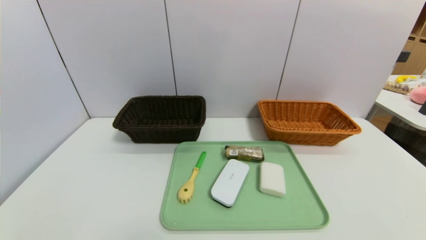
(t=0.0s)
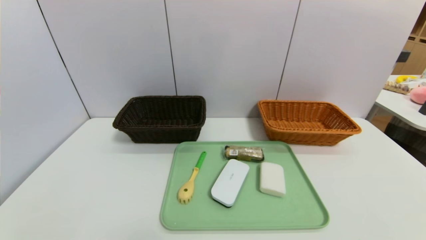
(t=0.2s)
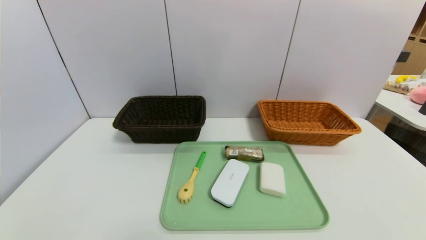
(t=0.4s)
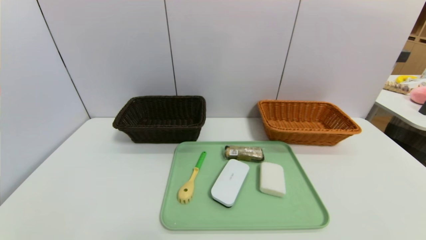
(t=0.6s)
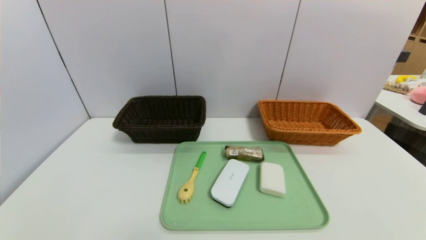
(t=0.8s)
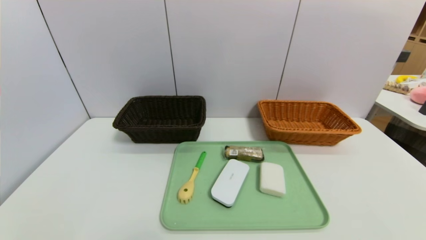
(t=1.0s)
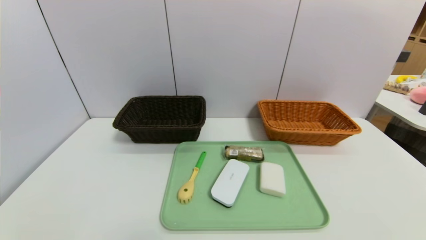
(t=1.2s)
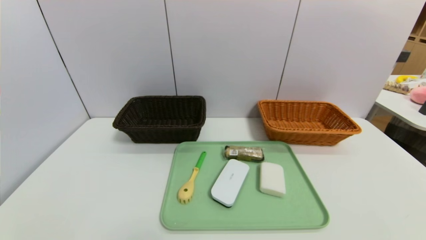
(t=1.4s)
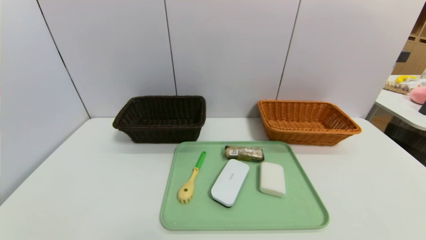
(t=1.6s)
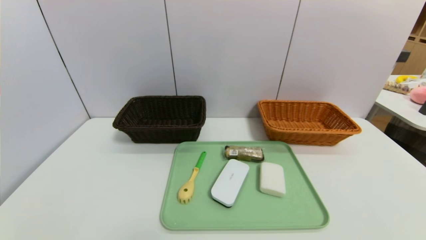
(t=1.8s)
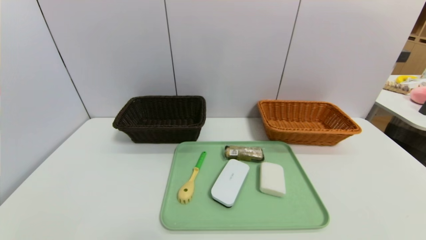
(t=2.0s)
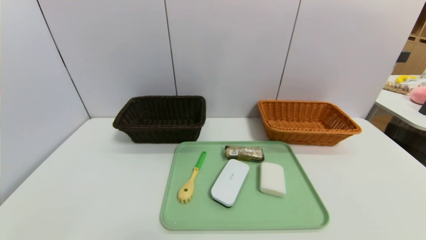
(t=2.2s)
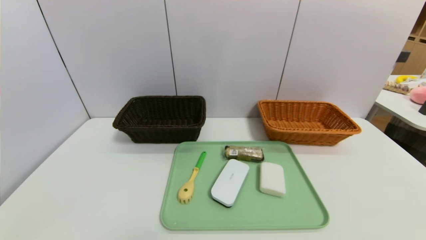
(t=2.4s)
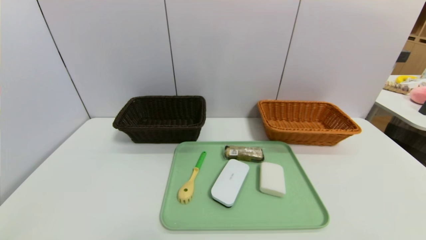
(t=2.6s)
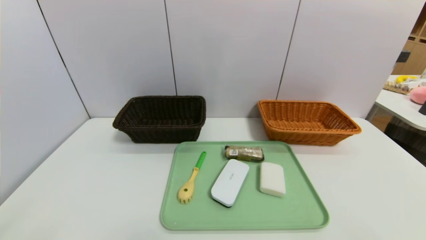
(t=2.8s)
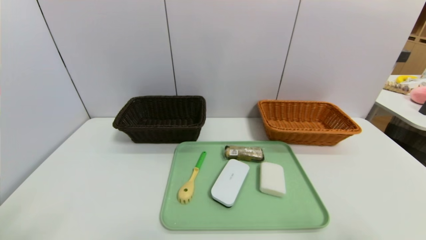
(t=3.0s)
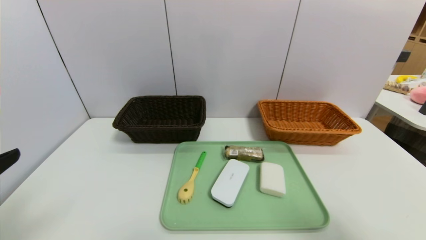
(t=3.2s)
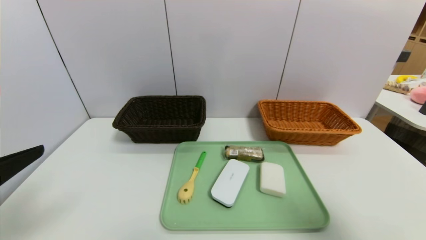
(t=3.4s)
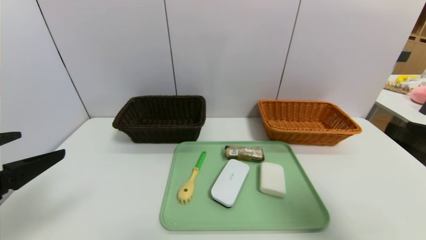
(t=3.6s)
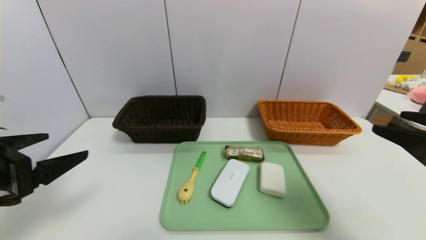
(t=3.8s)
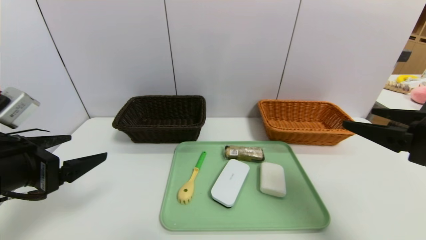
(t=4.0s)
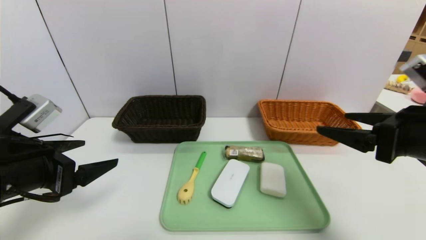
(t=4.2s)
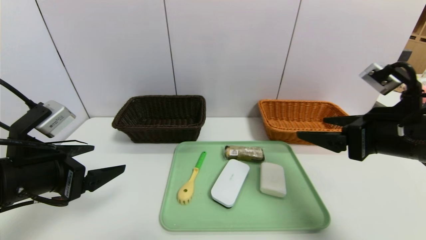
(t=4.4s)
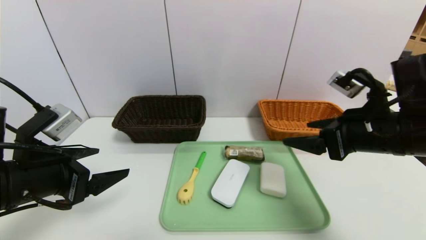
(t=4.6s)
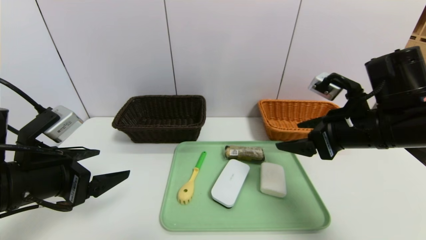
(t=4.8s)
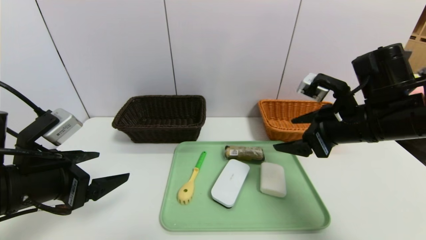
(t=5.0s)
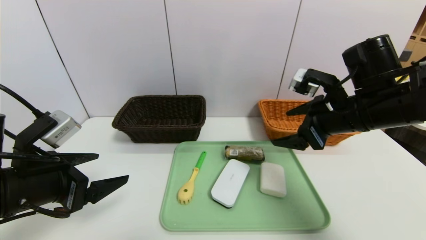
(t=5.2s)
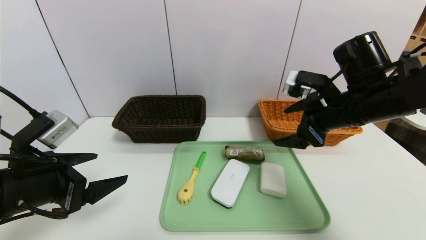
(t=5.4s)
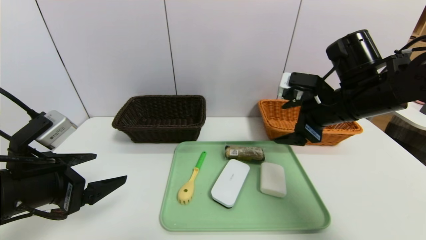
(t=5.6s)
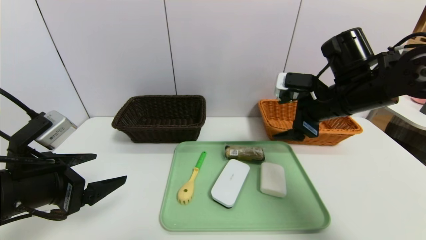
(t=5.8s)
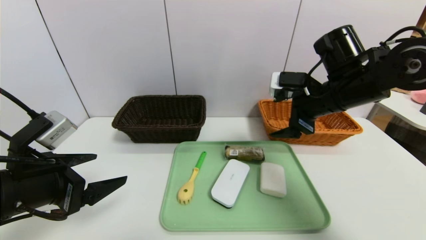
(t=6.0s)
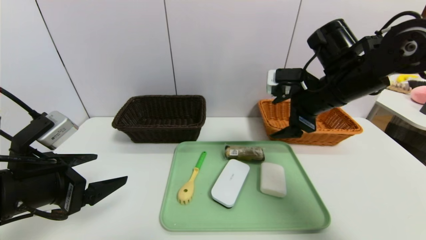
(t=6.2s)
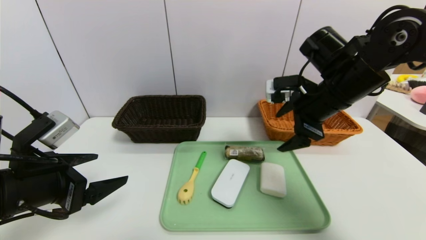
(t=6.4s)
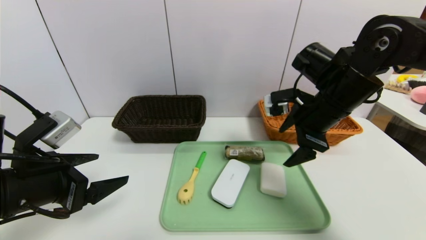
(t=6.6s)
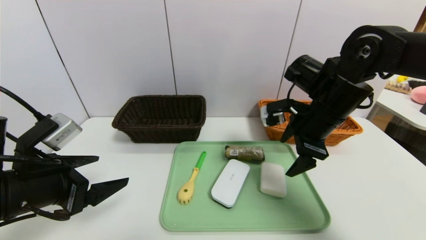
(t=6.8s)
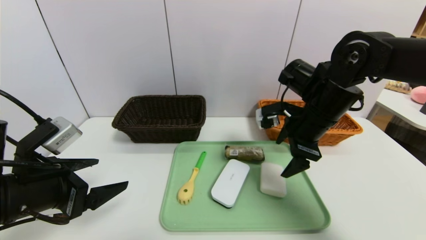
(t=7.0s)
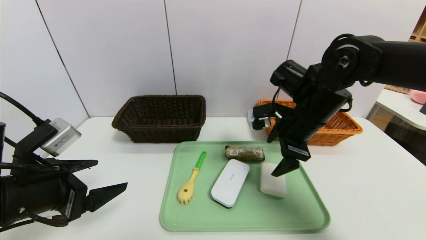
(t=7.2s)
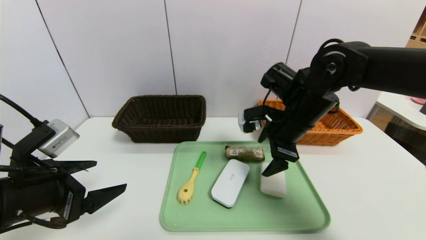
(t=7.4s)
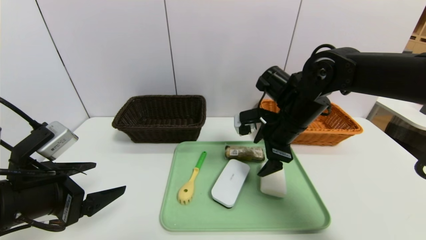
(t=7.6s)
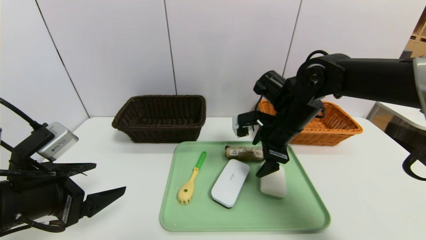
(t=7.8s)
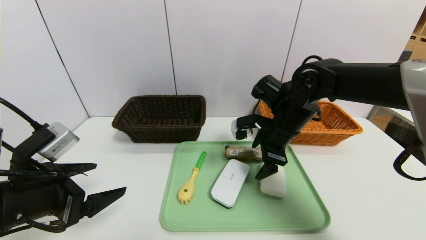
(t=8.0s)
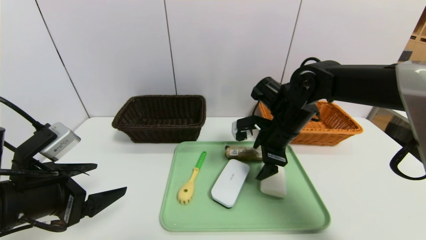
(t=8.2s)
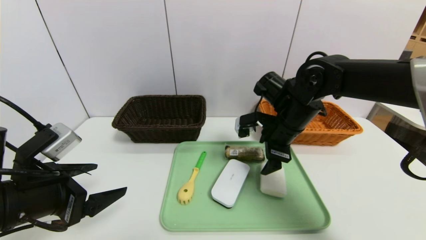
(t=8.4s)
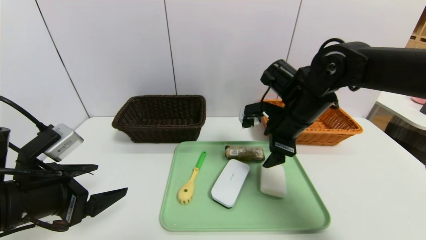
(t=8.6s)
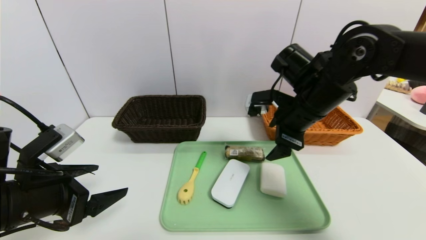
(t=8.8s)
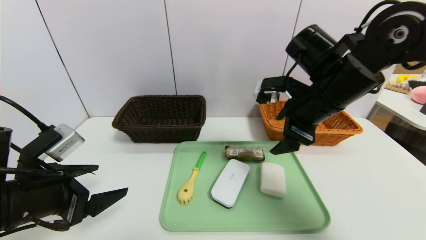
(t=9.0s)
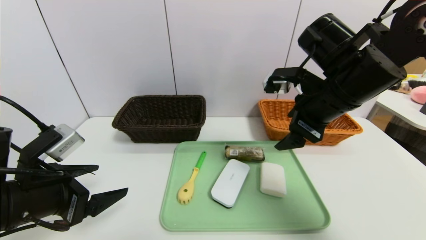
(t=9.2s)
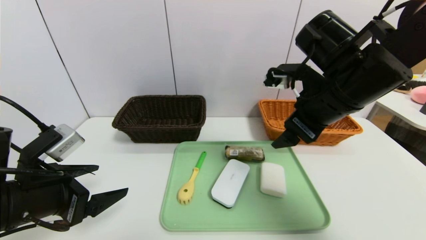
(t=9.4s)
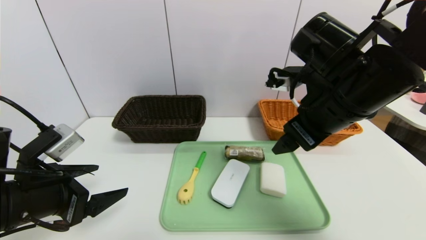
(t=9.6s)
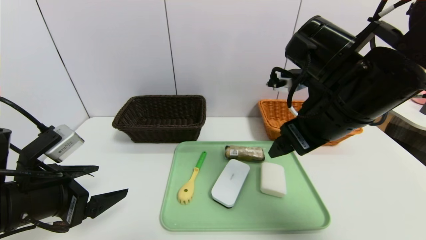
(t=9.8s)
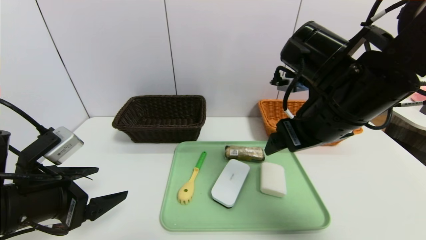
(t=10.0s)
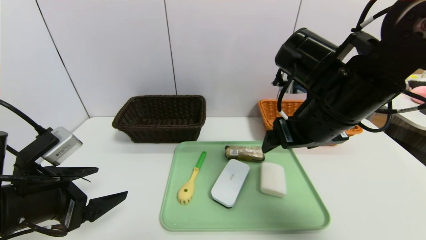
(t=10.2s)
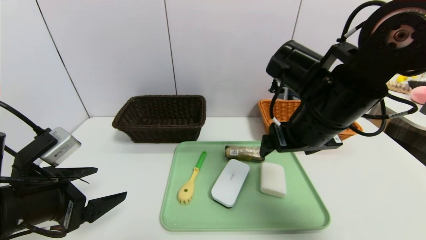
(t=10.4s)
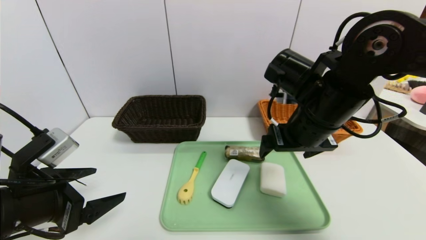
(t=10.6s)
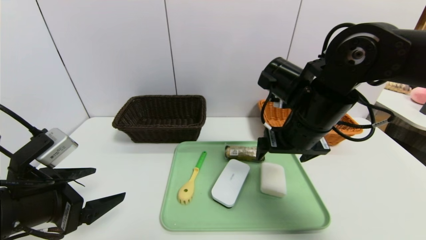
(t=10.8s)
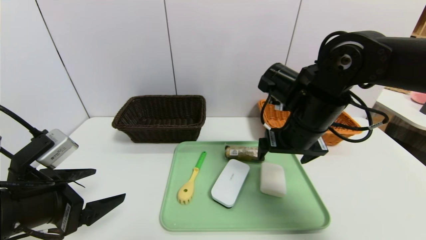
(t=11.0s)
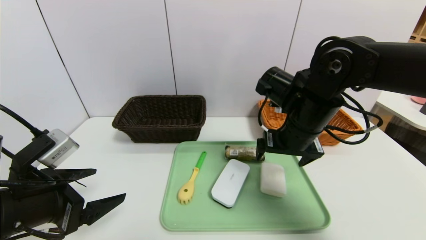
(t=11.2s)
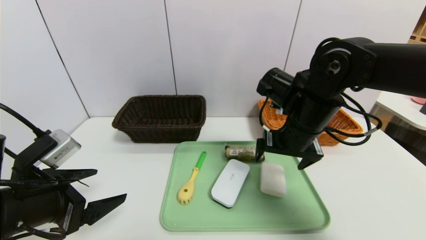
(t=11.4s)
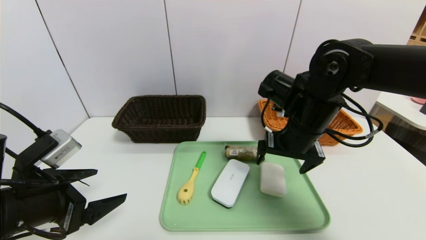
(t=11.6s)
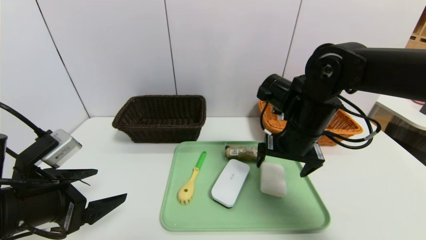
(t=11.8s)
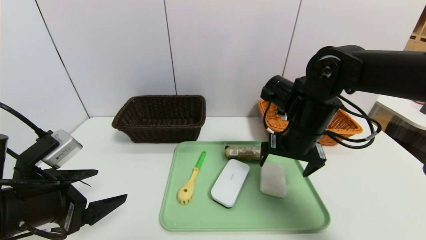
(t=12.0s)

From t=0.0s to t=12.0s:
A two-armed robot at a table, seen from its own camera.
Task of the whole recording: place the food in the right basket with the right gripper, and place the non food items in the left basket with the left gripper.
From t=0.0s to t=1.6s: Neither gripper changes place.
From t=3.0s to t=4.4s: The left gripper is displaced forward by roughly 15 cm, while the right gripper is displaced forward and to the left by some 20 cm.
From t=4.4s to t=6.0s: The right gripper is displaced forward and to the left by about 10 cm.
From t=6.0s to t=7.6s: The right gripper shifts about 5 cm to the left.
From t=7.6s to t=9.0s: The right gripper goes roughly 5 cm upward.
From t=10.4s to t=12.0s: The right gripper is displaced downward and forward by roughly 10 cm.

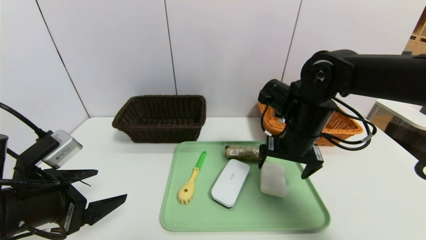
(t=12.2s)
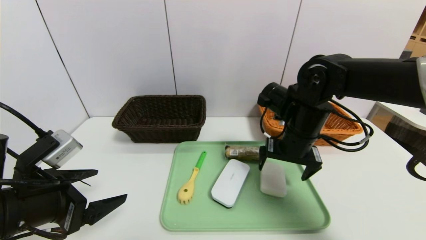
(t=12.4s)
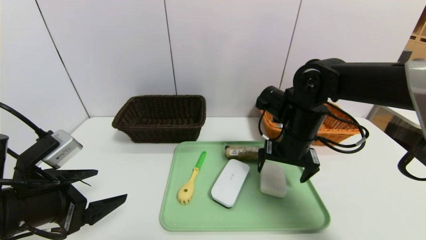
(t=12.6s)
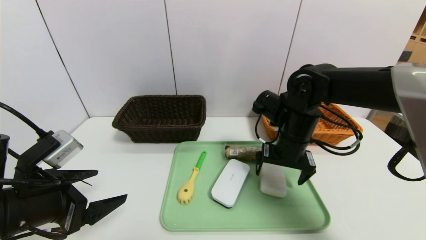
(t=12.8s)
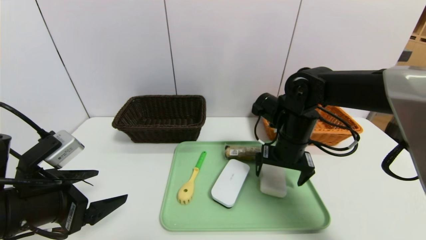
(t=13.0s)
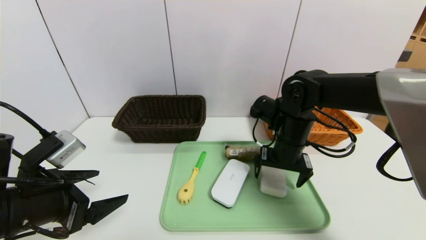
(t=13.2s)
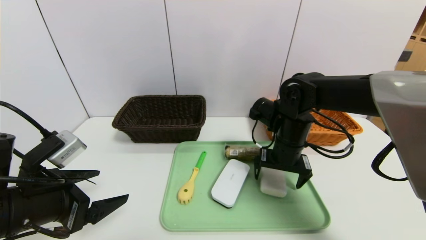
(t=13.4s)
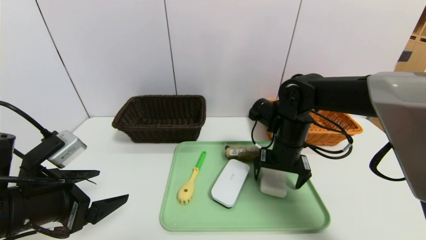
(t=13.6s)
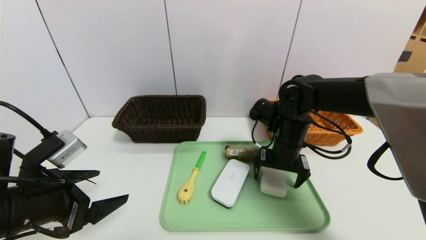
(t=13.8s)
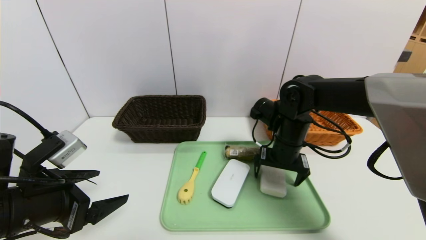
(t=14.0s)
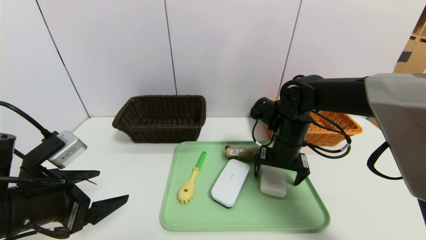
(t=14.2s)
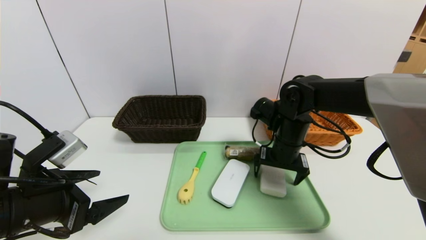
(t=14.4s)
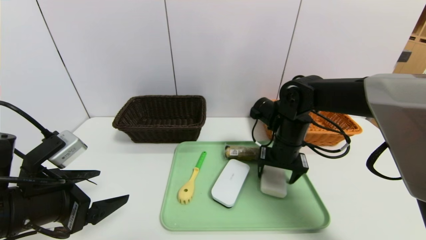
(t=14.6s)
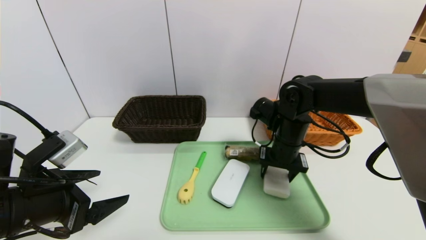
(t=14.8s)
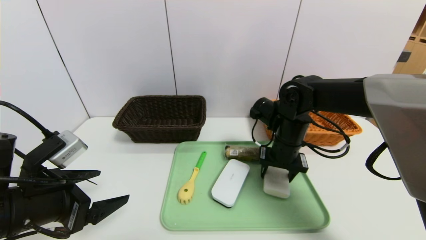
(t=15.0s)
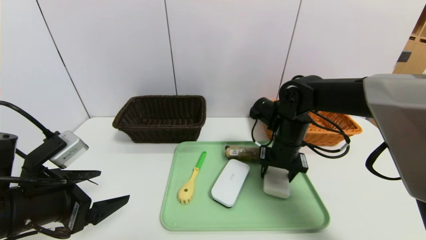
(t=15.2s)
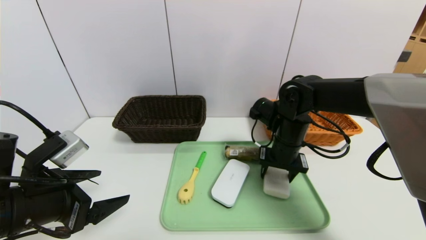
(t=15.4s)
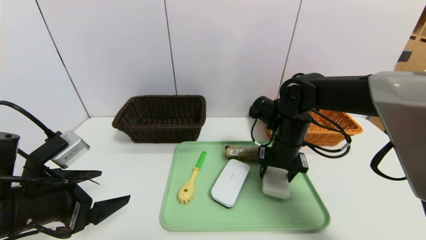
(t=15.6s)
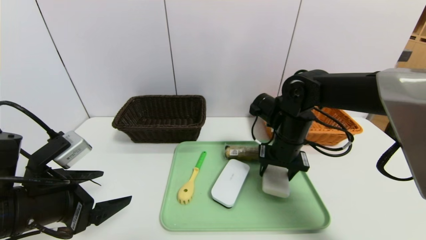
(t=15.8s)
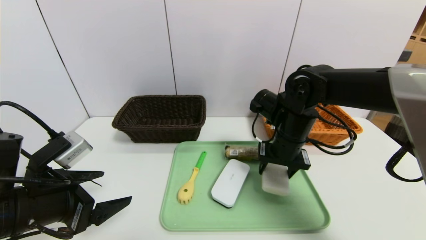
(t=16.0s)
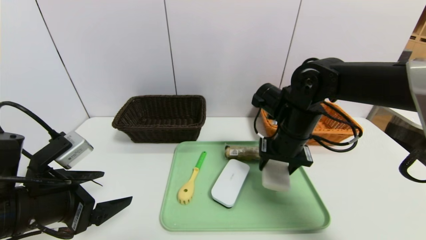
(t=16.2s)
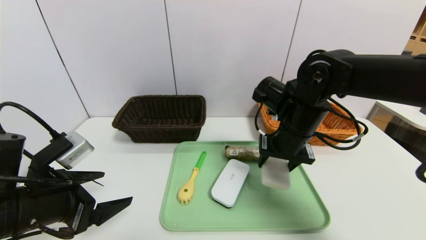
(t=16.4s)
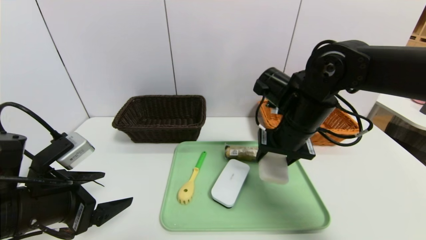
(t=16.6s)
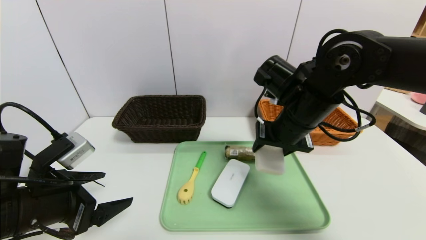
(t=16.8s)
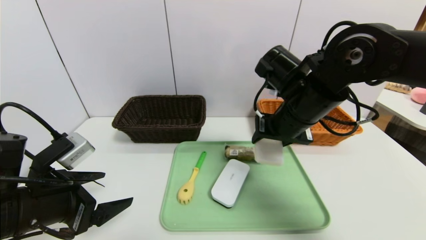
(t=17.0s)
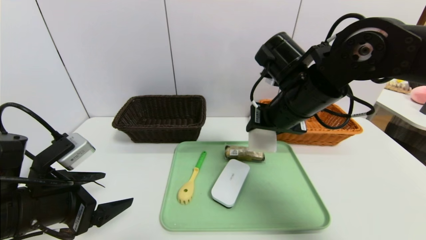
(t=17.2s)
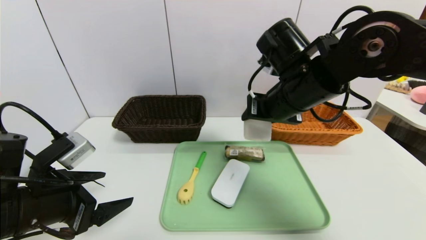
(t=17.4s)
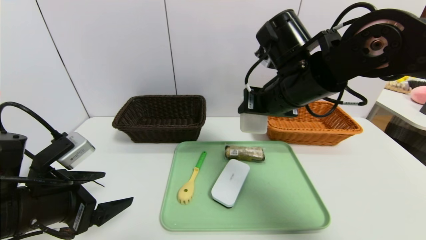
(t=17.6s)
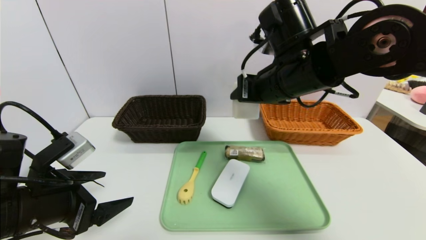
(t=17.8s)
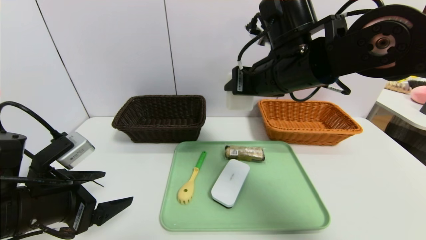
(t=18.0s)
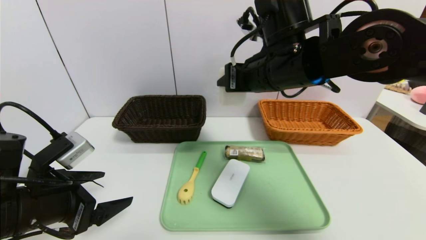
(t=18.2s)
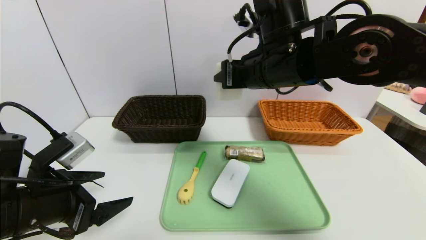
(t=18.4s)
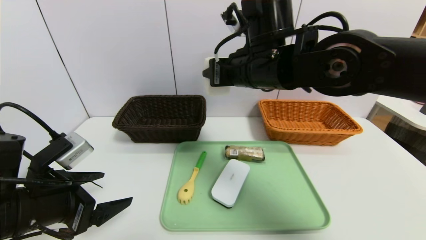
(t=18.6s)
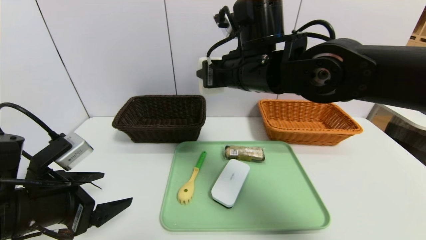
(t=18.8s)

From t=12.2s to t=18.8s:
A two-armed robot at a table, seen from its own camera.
Task of the whole recording: place the food in the right basket with the right gripper, and place the non food items in the left basket with the left gripper.
From t=12.2s to t=13.8s: The right gripper heads downward, covering roughly 5 cm.
From t=13.8s to t=15.4s: The right gripper closes its fingers.
From t=15.4s to t=17.2s: The right gripper goes about 10 cm upward and backward.
From t=17.2s to t=18.8s: The right gripper goes roughly 10 cm to the left.
